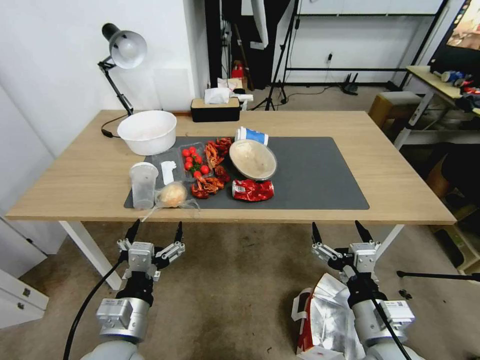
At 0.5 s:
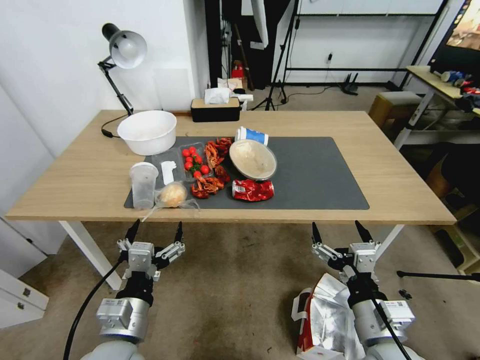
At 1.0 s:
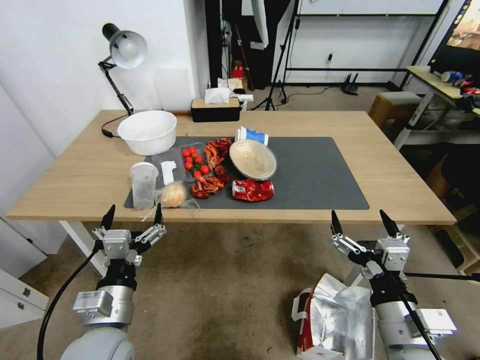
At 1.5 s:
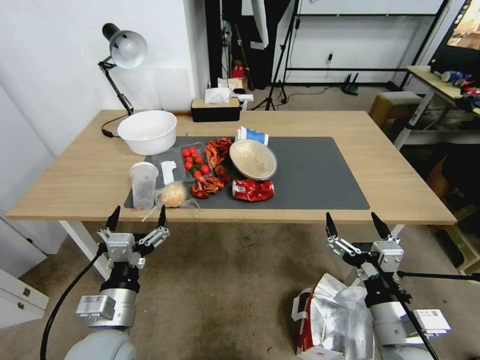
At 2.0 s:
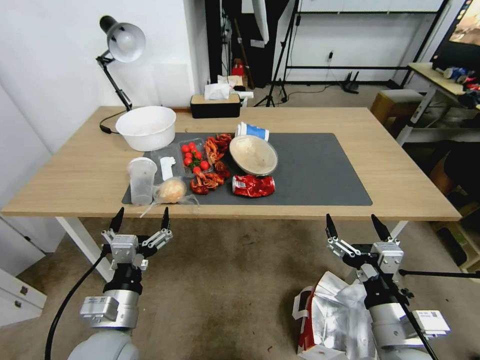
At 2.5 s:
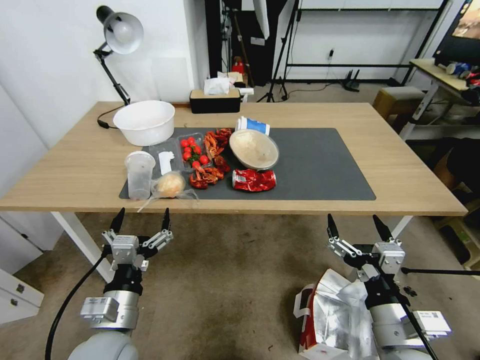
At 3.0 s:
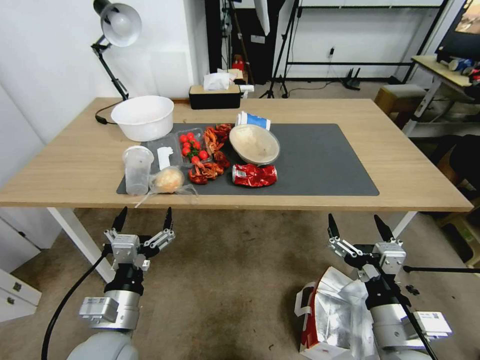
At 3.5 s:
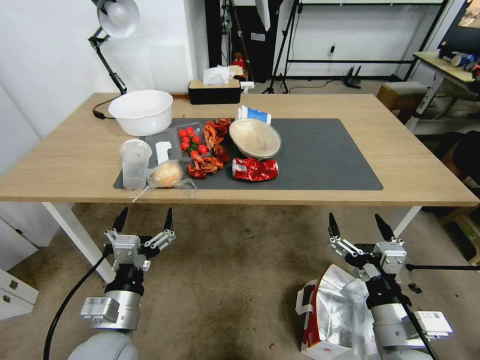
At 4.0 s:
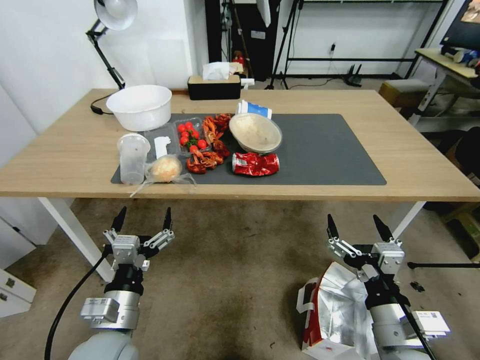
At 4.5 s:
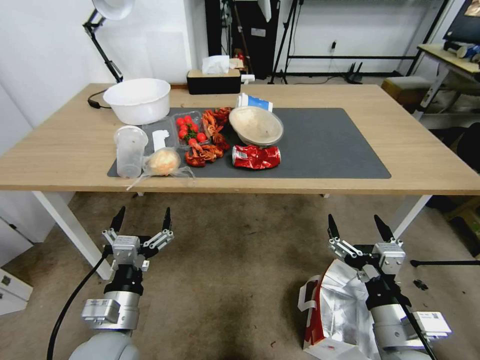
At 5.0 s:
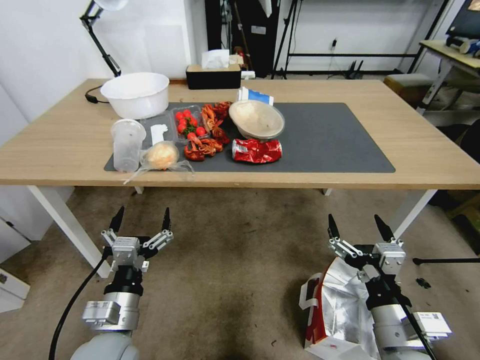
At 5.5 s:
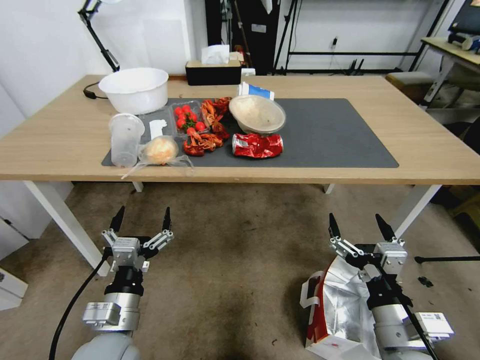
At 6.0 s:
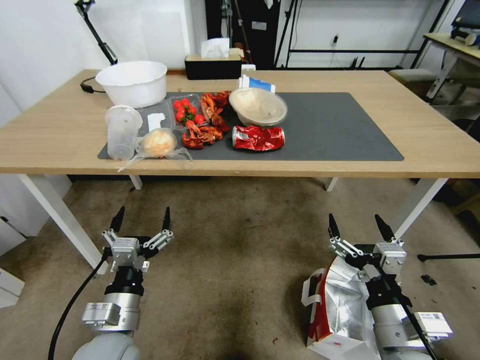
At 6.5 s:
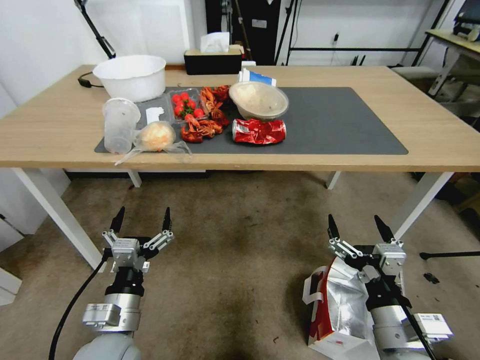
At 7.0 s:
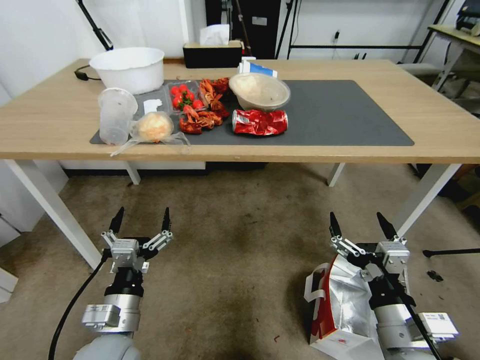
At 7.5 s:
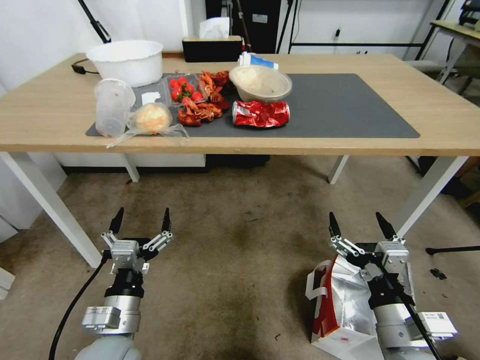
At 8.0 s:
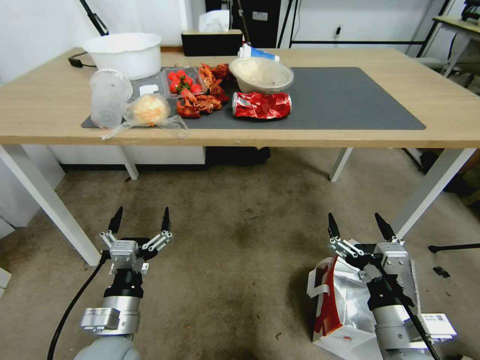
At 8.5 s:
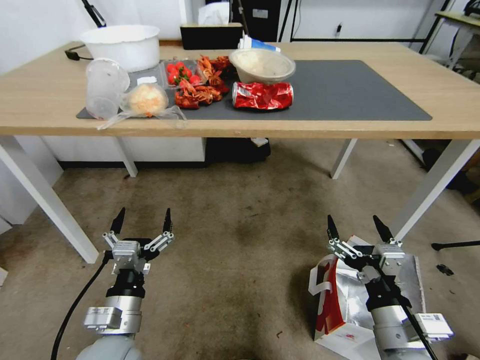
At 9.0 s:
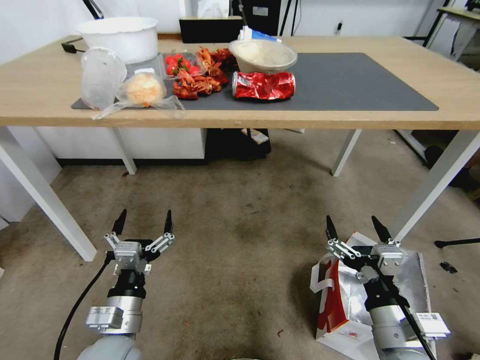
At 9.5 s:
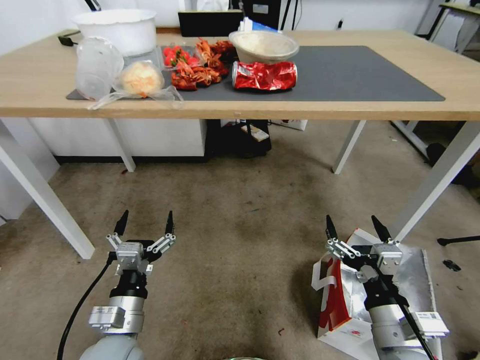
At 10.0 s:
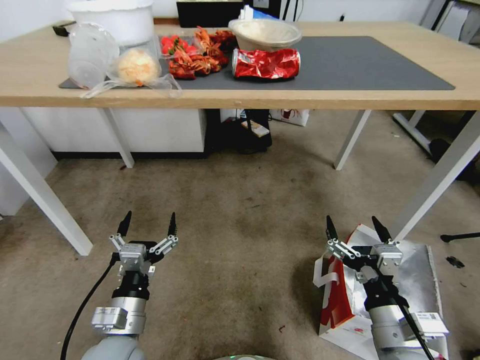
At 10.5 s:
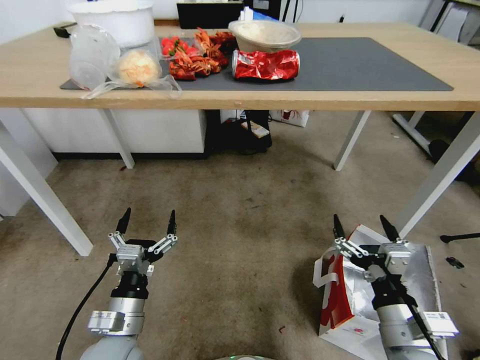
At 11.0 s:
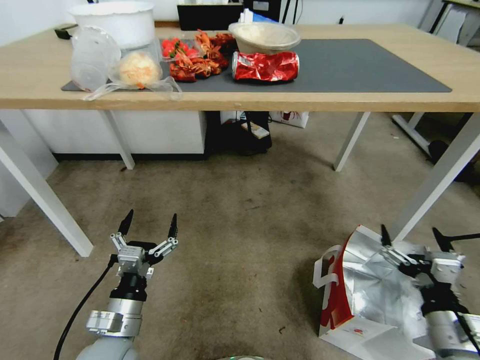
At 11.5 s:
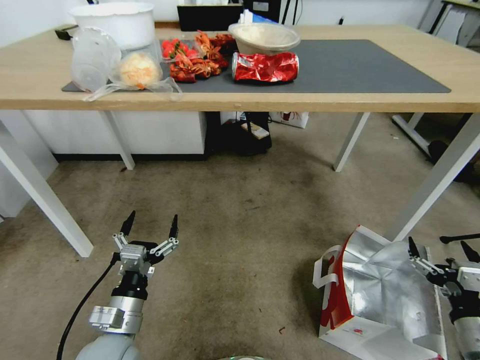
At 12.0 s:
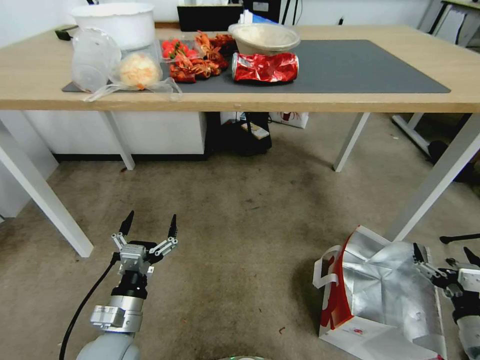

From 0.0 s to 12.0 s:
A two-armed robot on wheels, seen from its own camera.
Task of the whole recording: Pick up the food delivery bag from the floor and place it on the table.
From 10.0 s to 12.0 s: The right gripper is displaced to the right by roughly 20 cm.

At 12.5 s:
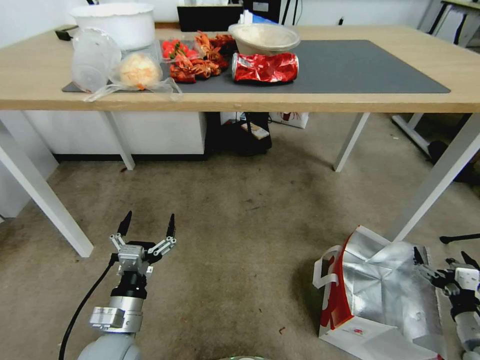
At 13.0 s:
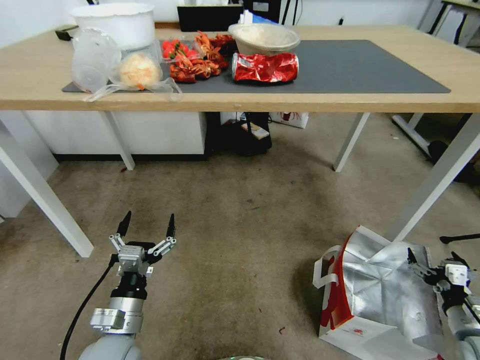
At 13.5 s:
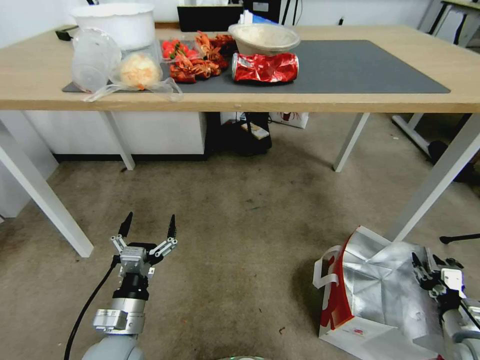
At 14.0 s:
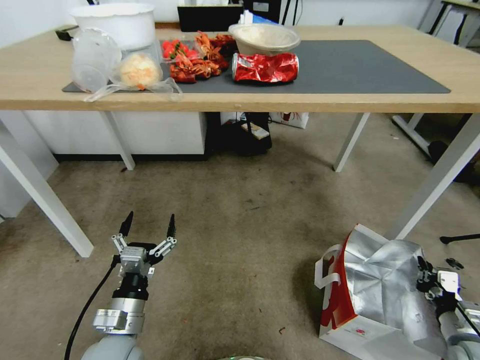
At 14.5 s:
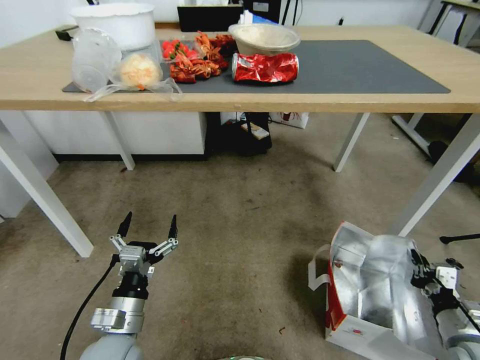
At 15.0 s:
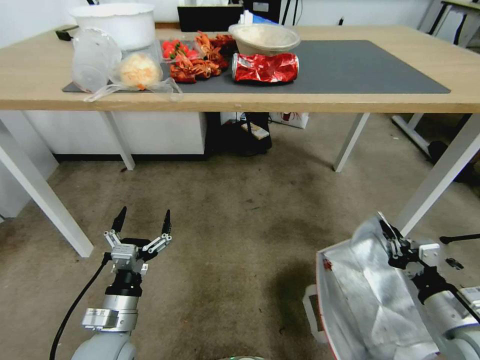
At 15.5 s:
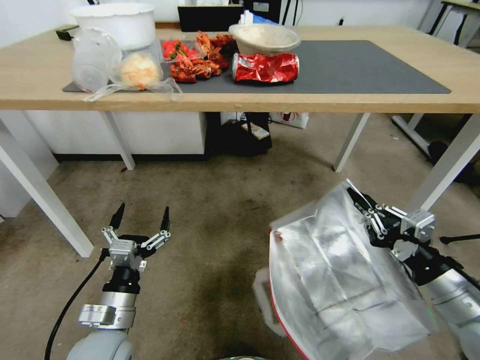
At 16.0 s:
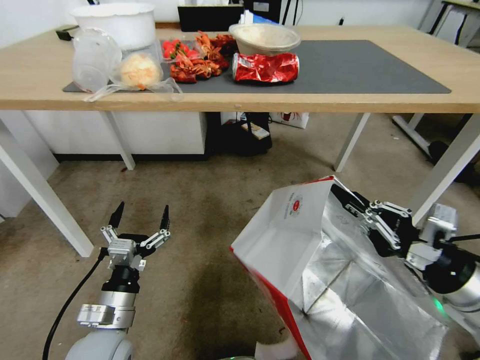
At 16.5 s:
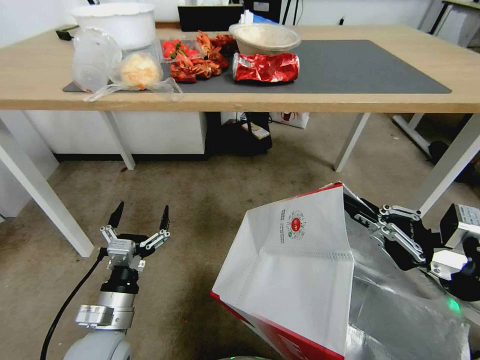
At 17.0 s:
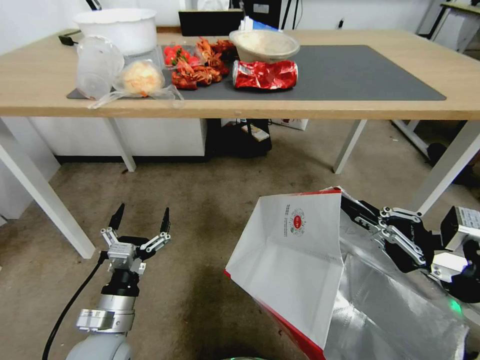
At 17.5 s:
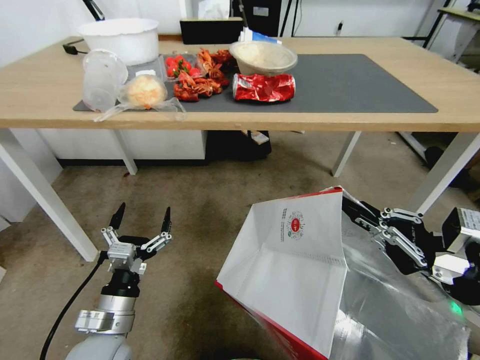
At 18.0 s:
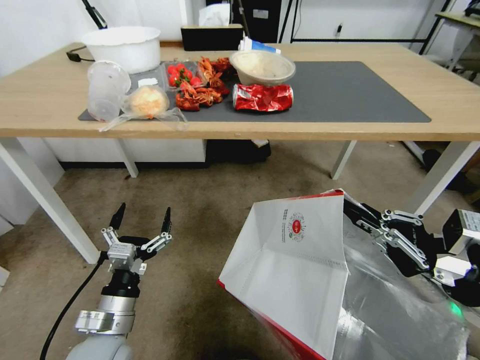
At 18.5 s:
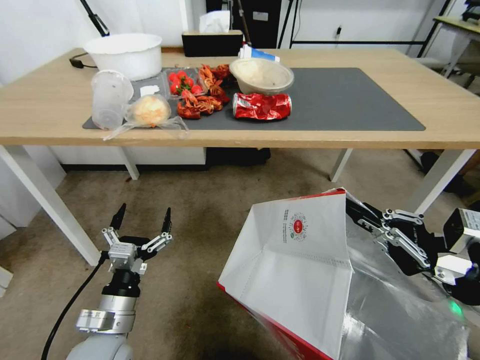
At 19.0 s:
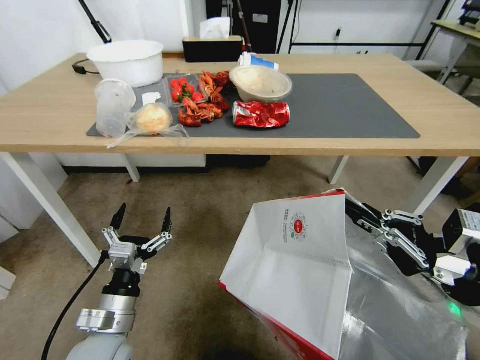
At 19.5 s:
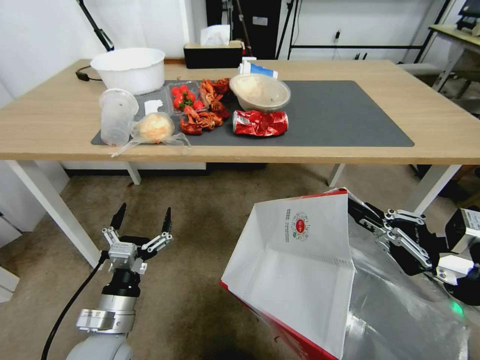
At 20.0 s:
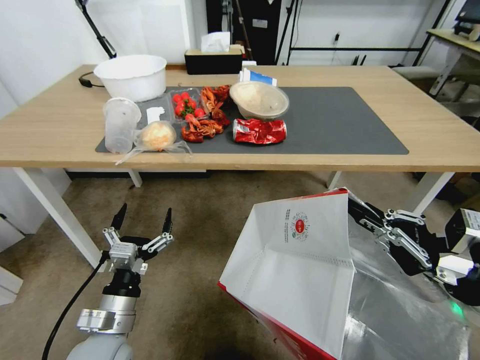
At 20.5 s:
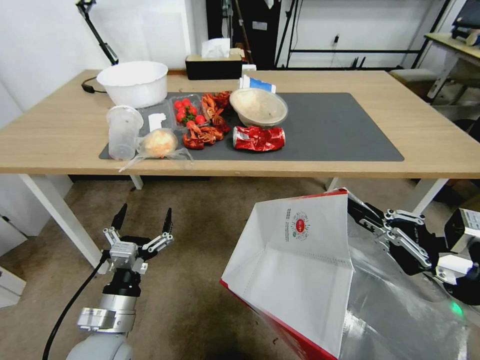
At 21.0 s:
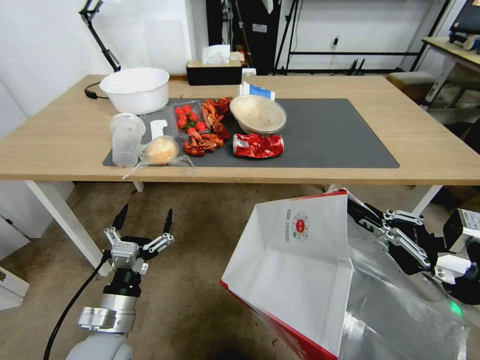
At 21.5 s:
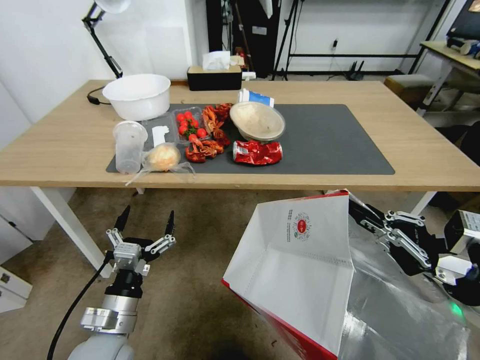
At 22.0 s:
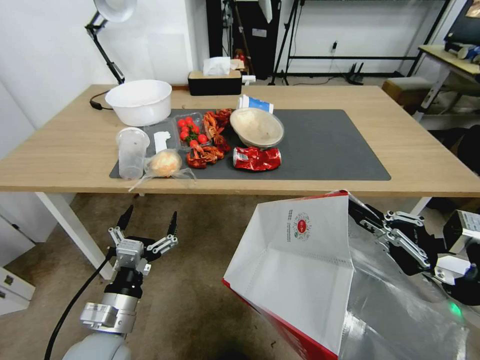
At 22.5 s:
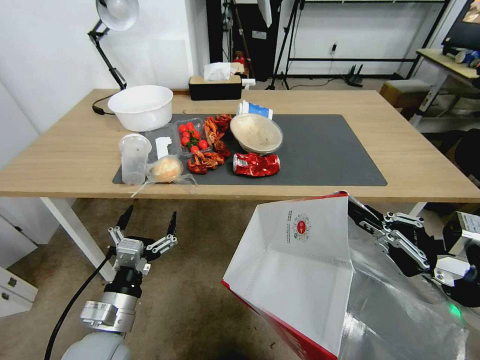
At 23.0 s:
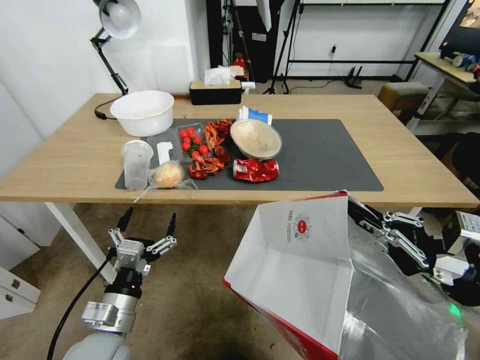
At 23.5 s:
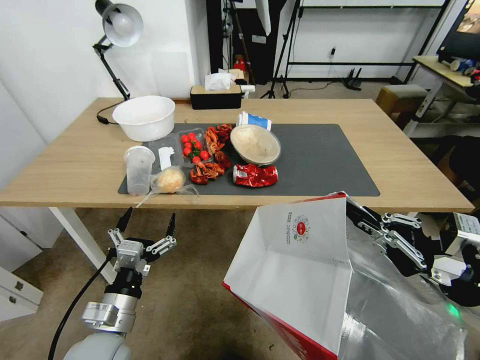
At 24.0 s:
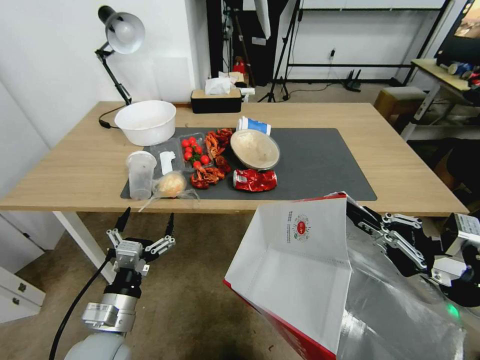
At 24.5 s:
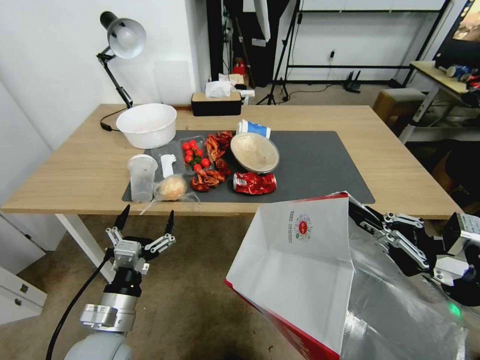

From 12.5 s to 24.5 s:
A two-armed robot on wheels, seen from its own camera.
Task of the whole recording: Pick up the food delivery bag from the floor and place it on the table.
From 12.5 s to 14.5 s: The right gripper closes.
From 14.5 s to 16.5 s: The right gripper travels upward by roughly 25 cm.

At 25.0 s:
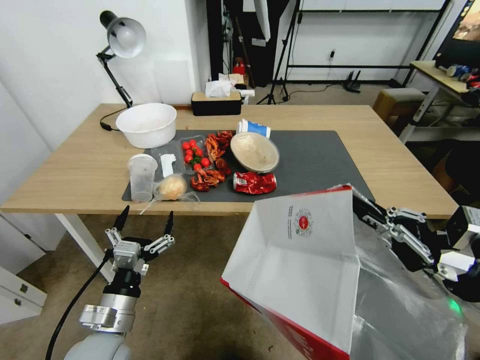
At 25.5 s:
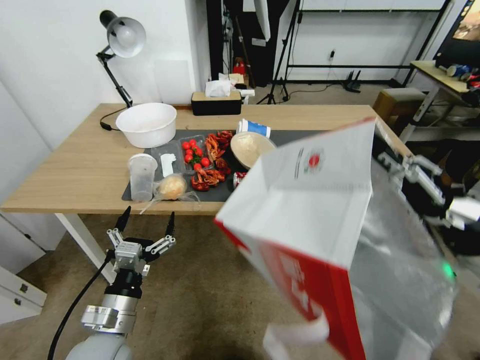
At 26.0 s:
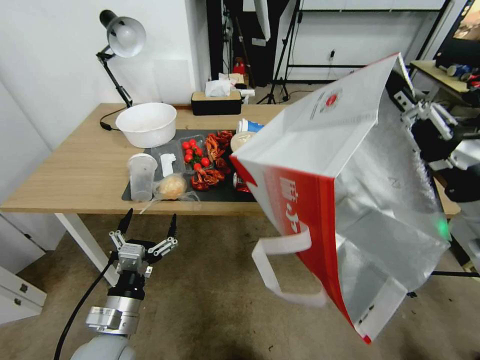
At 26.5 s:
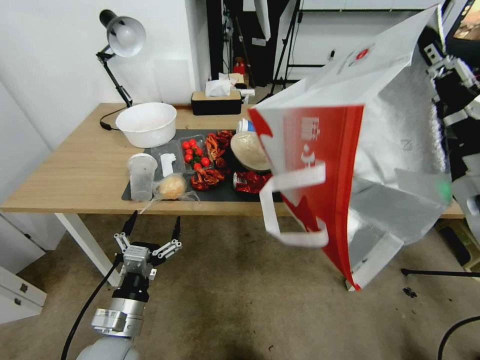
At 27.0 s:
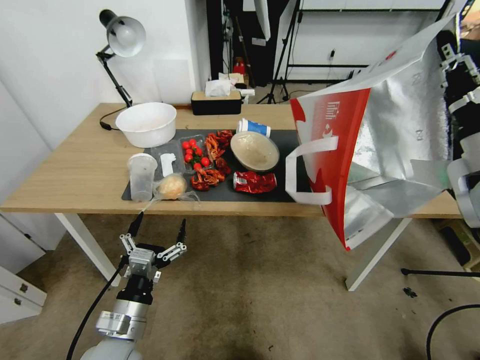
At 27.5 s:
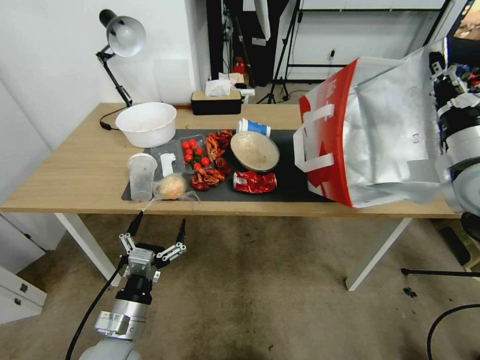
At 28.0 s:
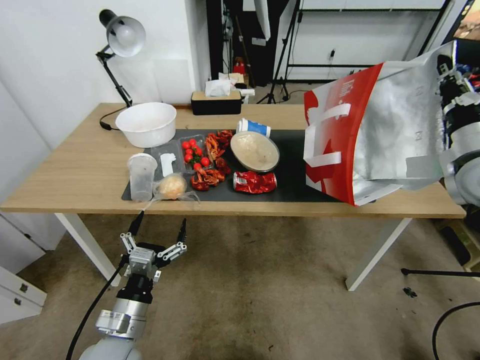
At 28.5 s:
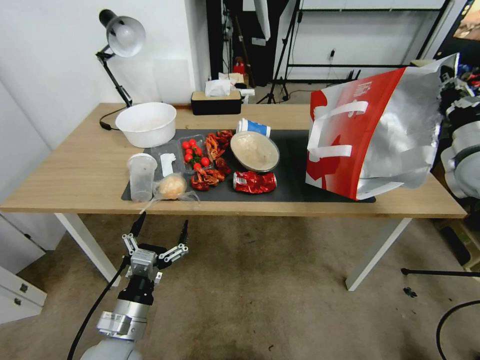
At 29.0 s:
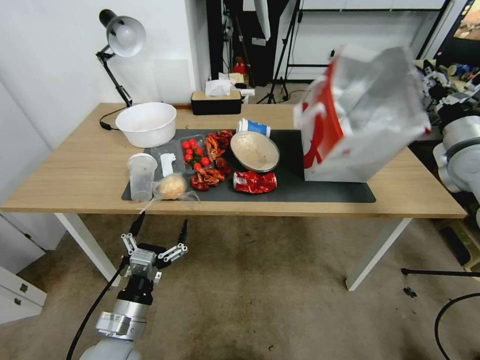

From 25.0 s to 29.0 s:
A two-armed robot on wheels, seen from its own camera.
Task of the whole recording: Pick up the food delivery bag from the floor and place it on the table.
From 25.0 s to 27.0 s: The right gripper is displaced forward and upward by some 15 cm.
From 27.0 s to 29.0 s: The right gripper moves forward and to the right, roughly 15 cm.
